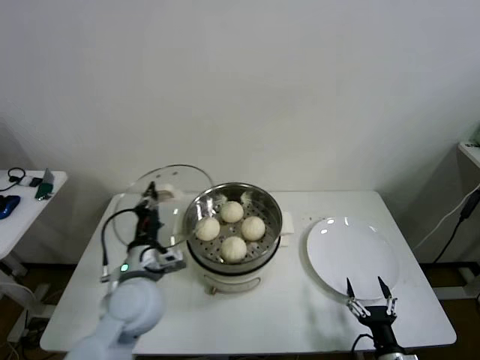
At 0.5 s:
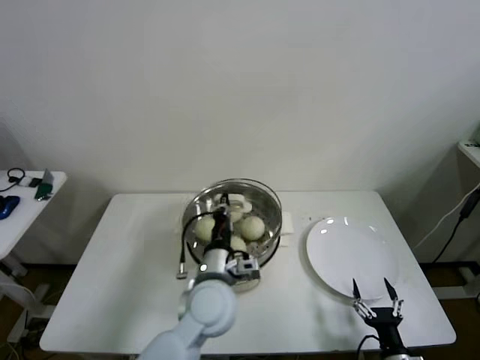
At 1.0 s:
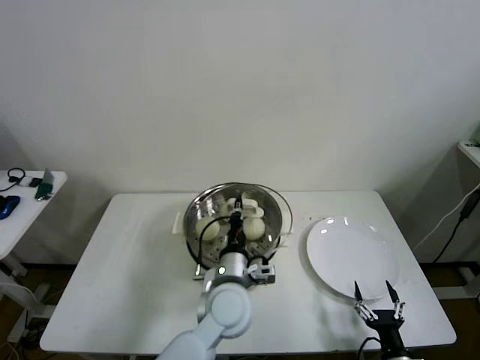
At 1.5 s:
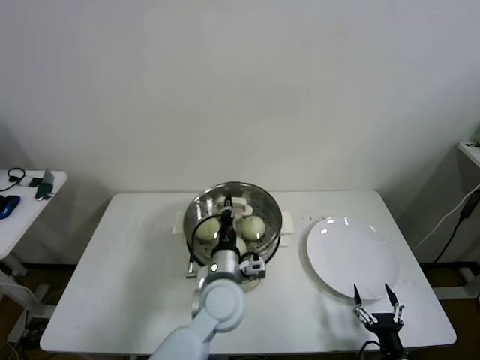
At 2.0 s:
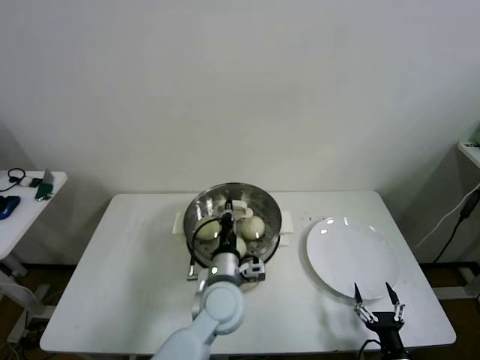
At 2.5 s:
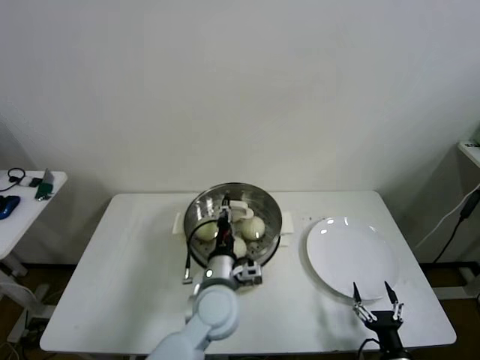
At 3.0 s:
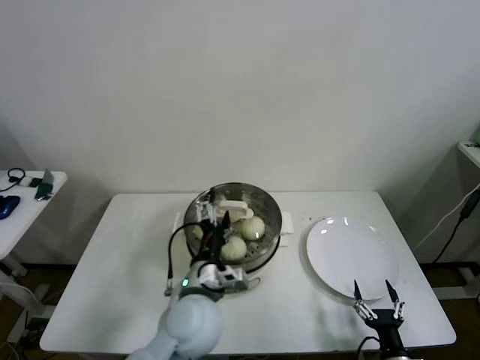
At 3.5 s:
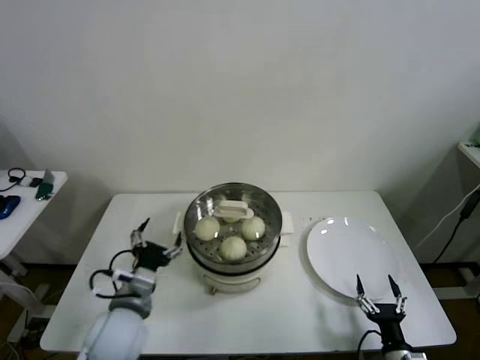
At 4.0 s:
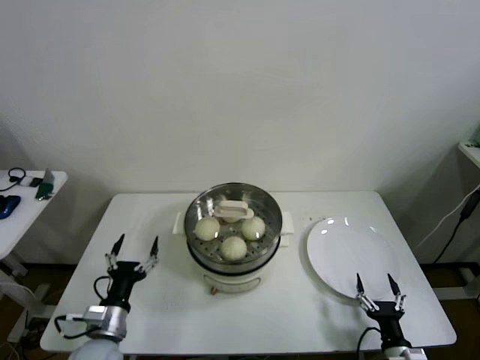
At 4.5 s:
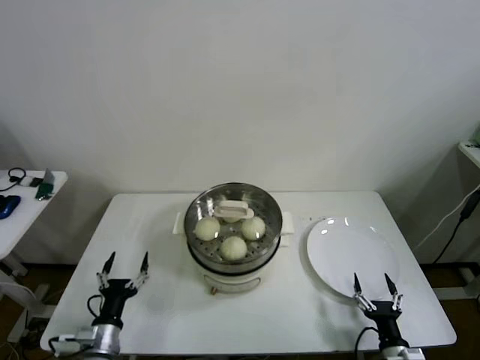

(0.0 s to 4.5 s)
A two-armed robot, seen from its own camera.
Step, 0.0 s - 2.0 s: Place the pot lid on the steamer with left gripper.
0.0 s - 2.0 s: The left gripper shifts some 15 cm to the right.
2.0 s - 4.5 s: The left gripper is displaced to the left, backward and downward by approximately 30 cm, and opens its fingers.
